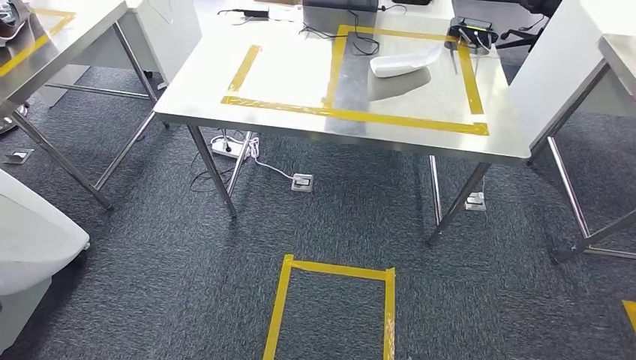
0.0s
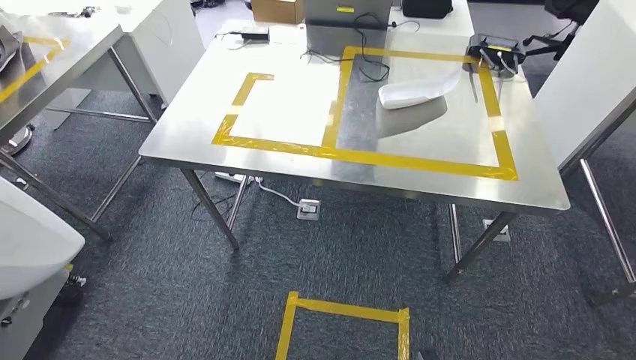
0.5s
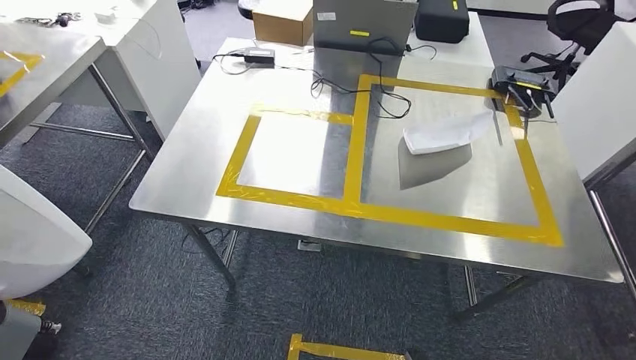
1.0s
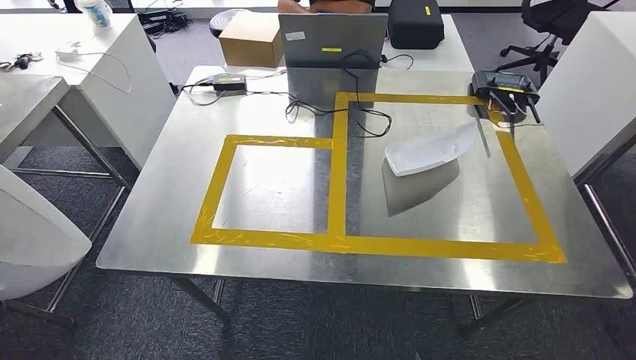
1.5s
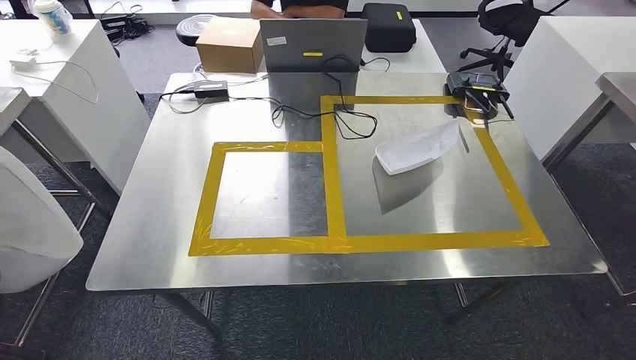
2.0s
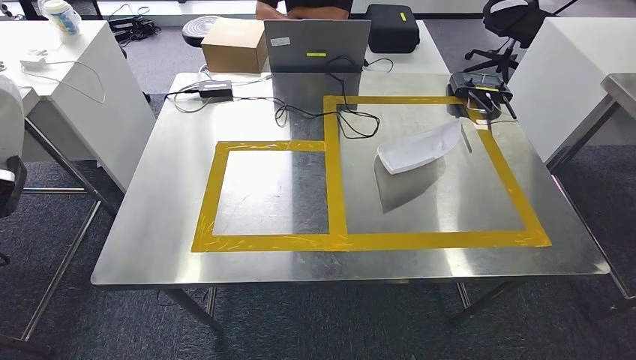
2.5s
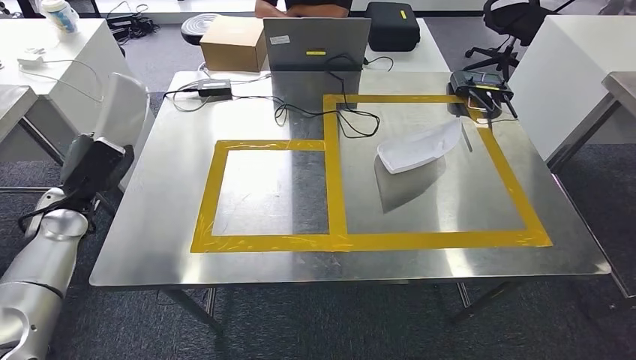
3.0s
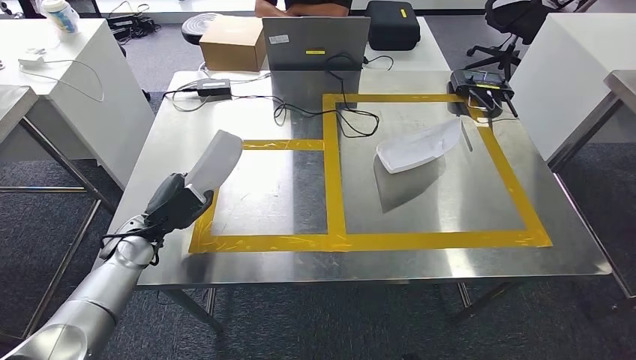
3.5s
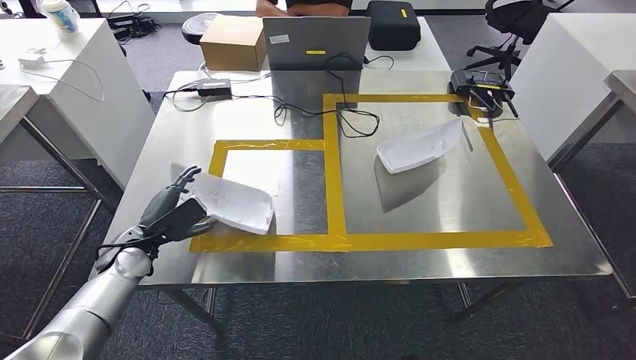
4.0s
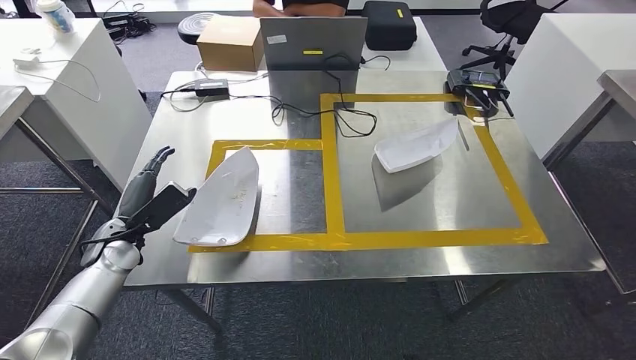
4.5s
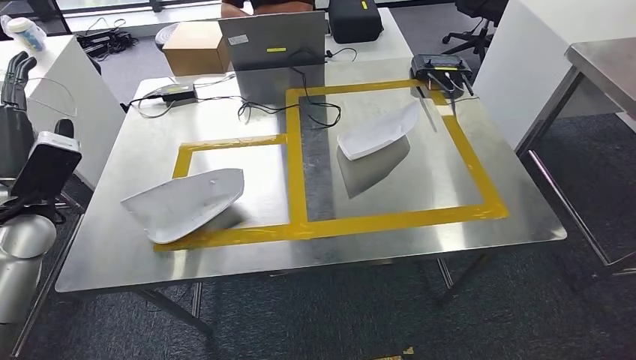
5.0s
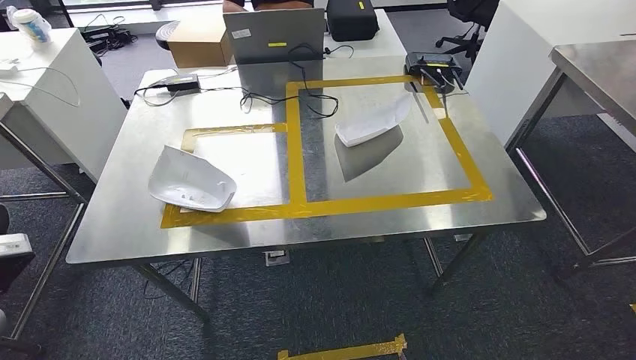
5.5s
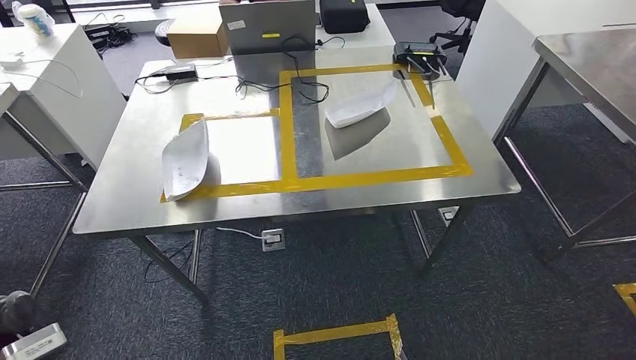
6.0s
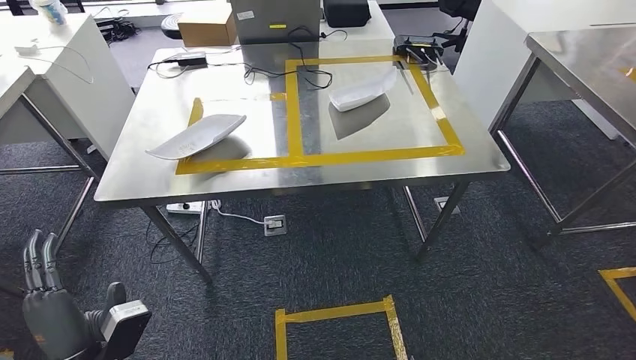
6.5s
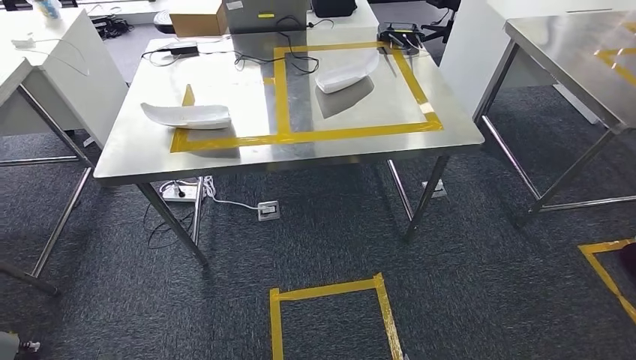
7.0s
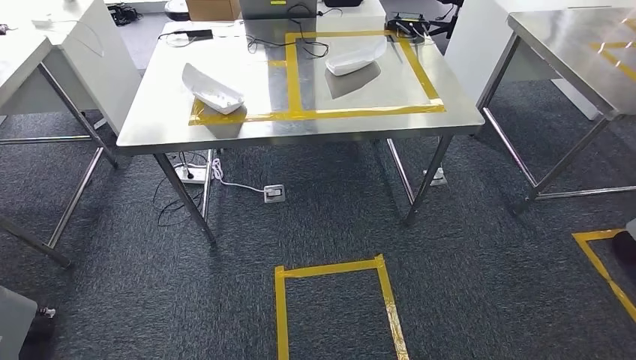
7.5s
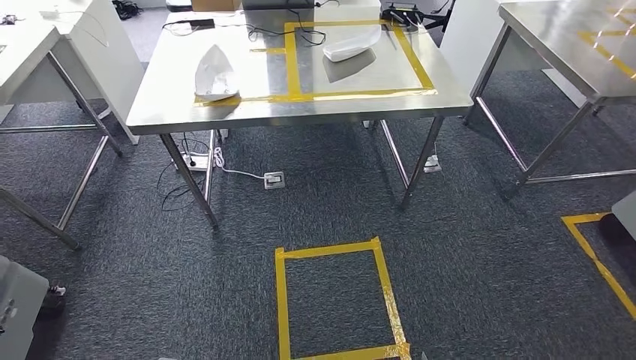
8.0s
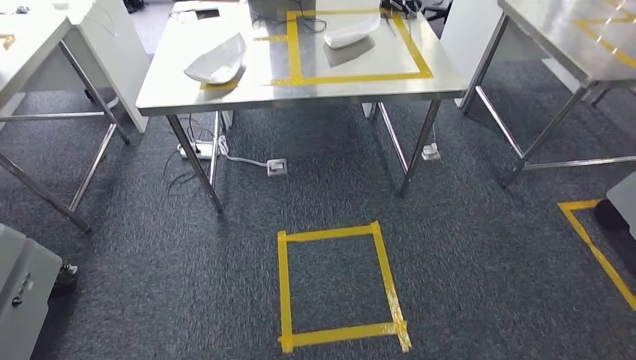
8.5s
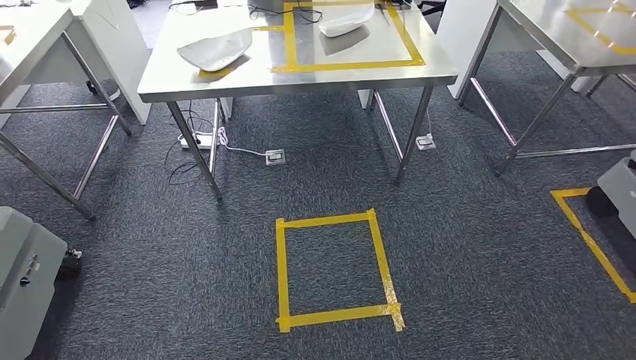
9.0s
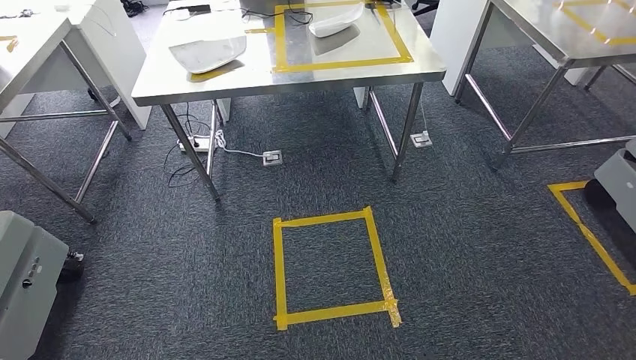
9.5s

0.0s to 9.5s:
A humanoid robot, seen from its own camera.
Step, 0.5s to 5.5s: Insert the small parts into the corresponding holes on the workbench.
Step, 6.0s to 9.5s: Move to the initial position at the workbench.

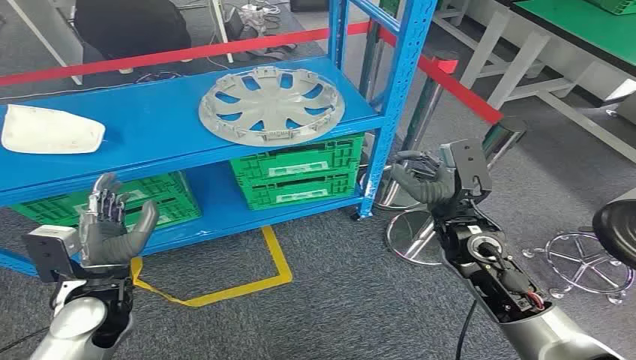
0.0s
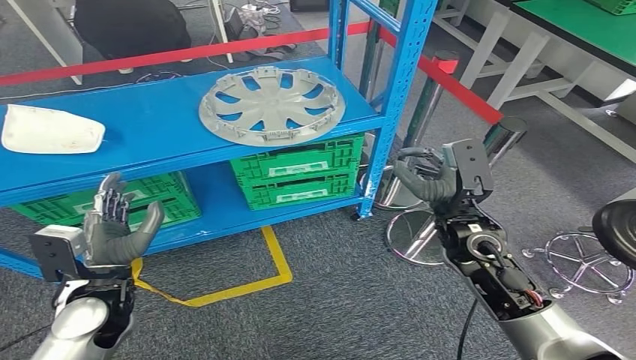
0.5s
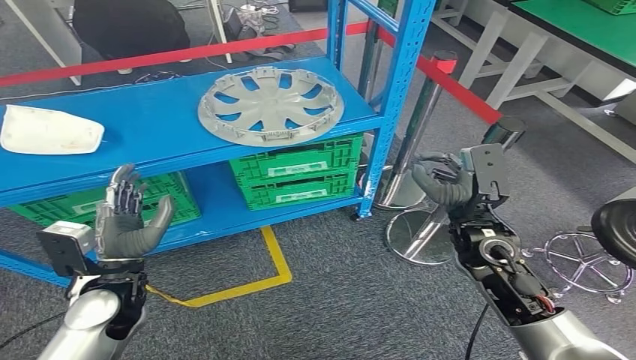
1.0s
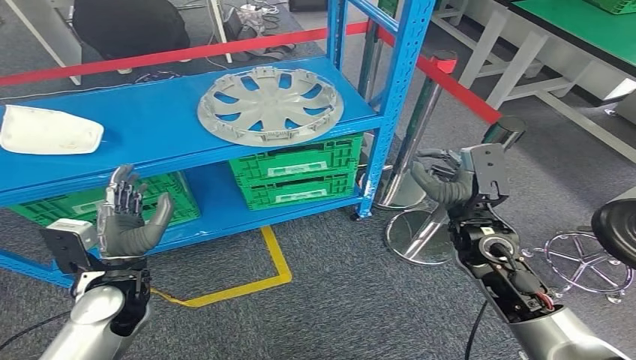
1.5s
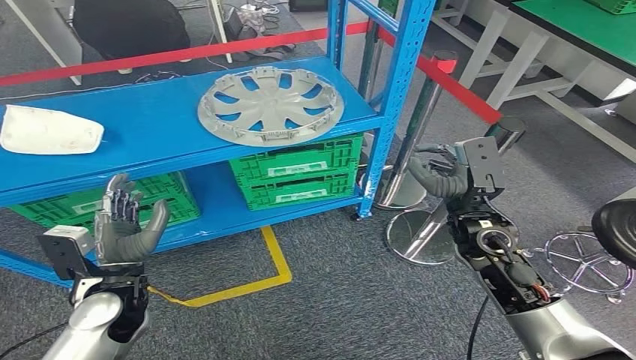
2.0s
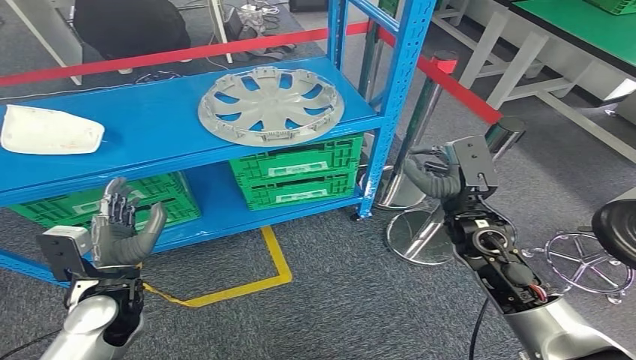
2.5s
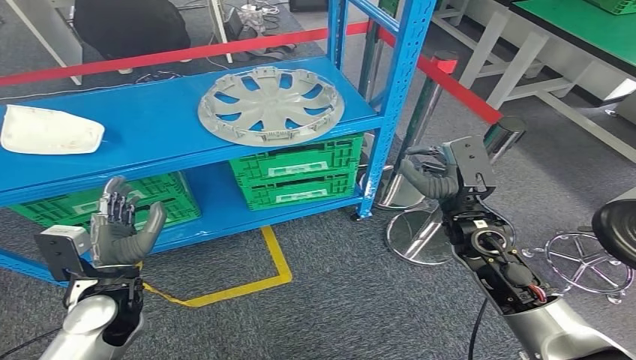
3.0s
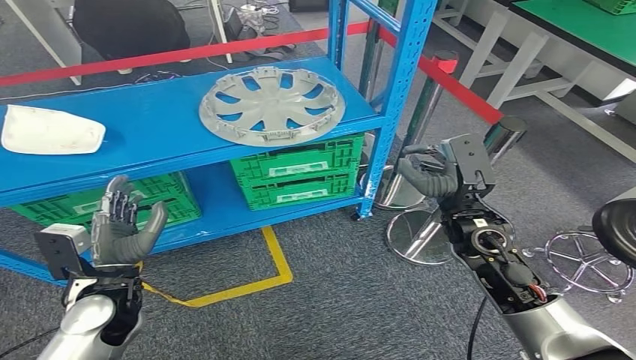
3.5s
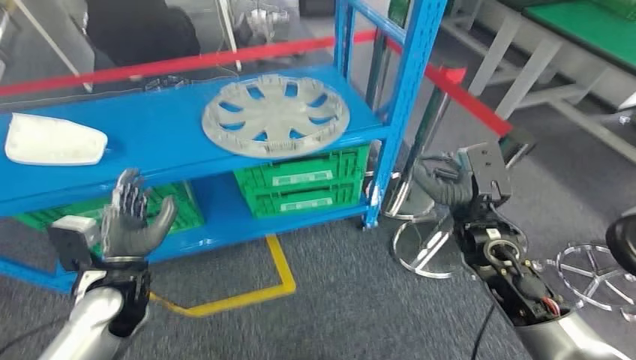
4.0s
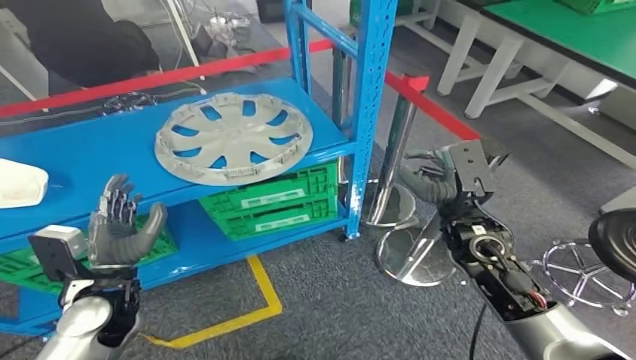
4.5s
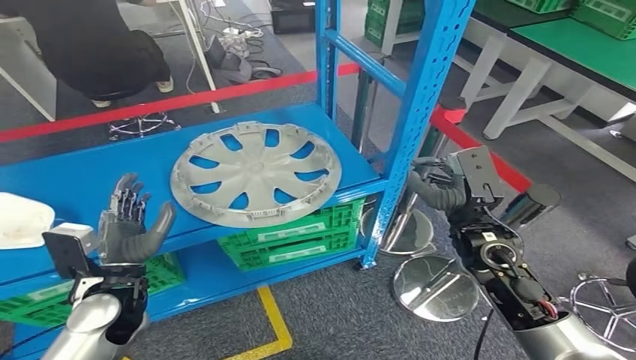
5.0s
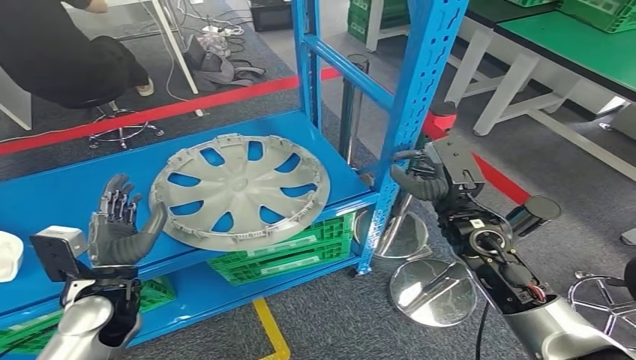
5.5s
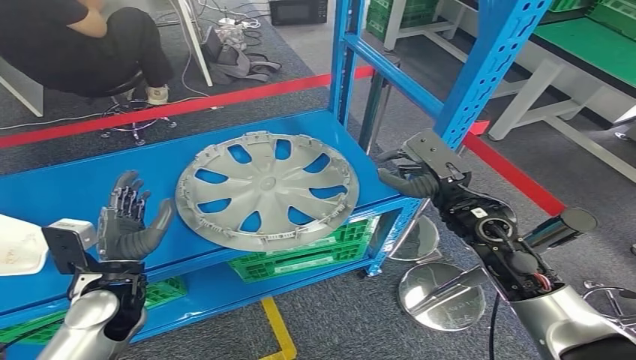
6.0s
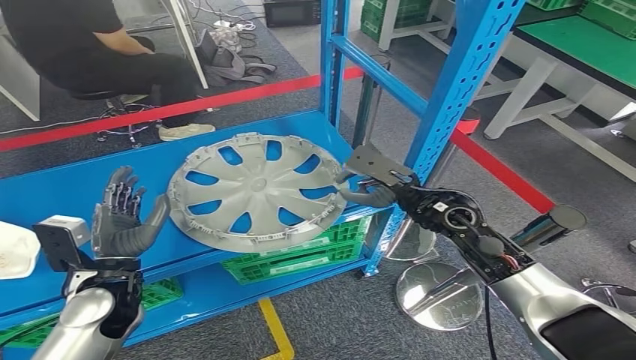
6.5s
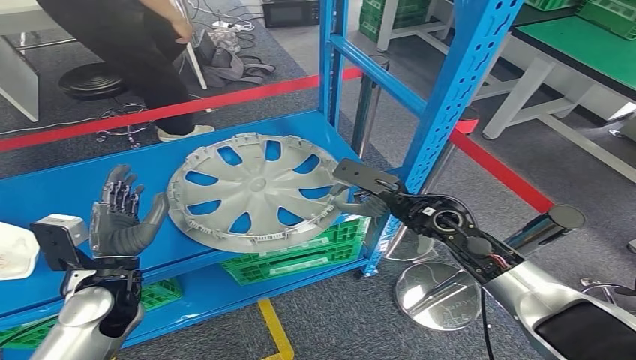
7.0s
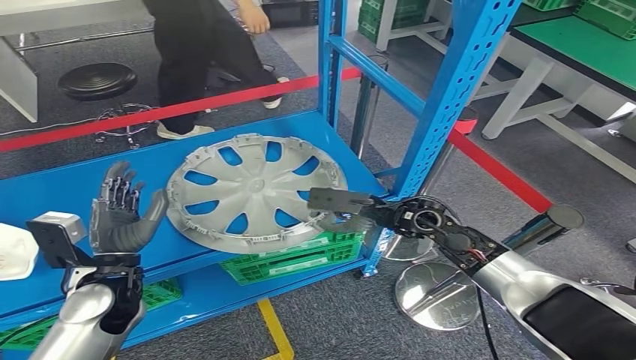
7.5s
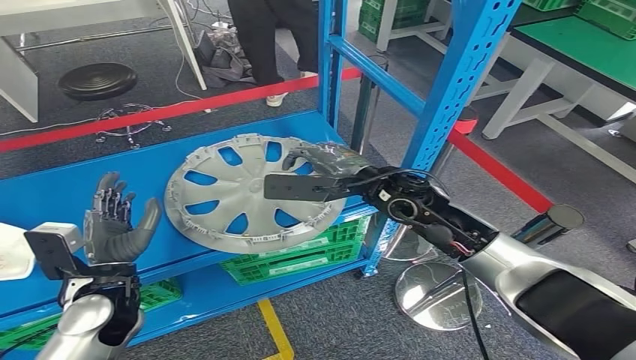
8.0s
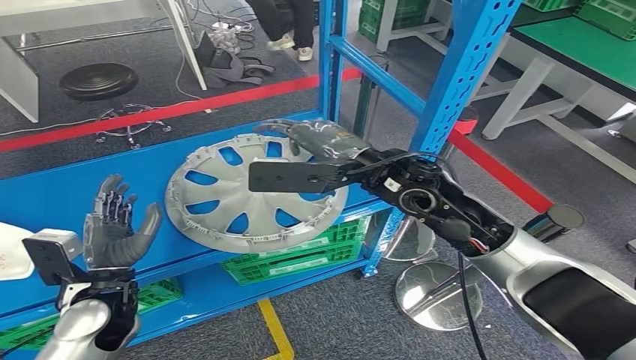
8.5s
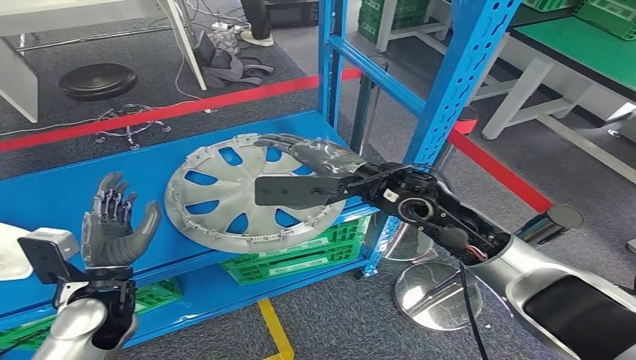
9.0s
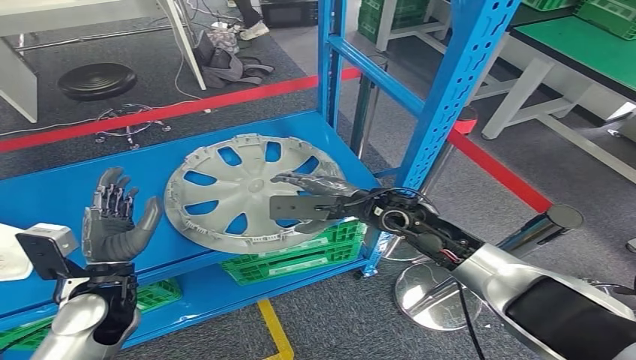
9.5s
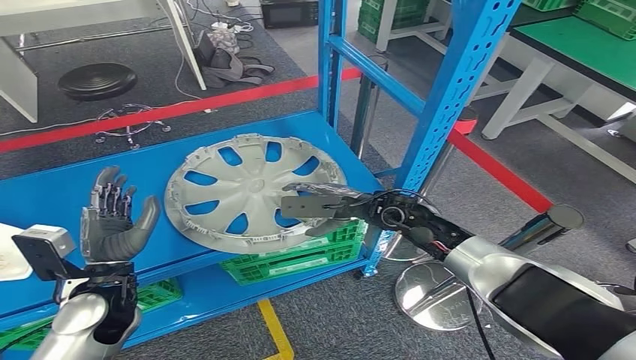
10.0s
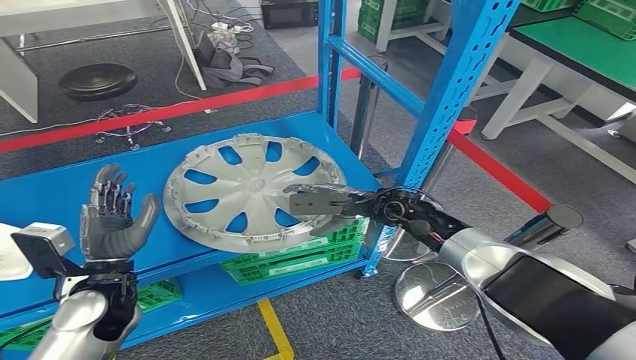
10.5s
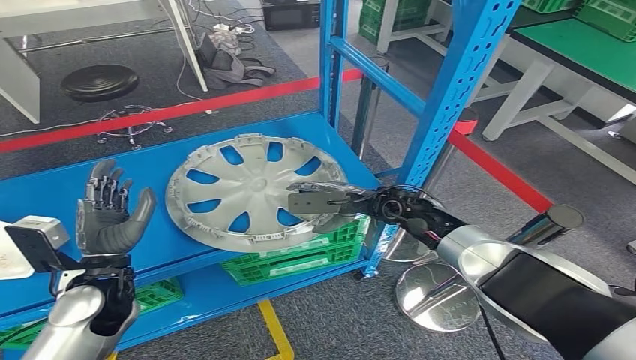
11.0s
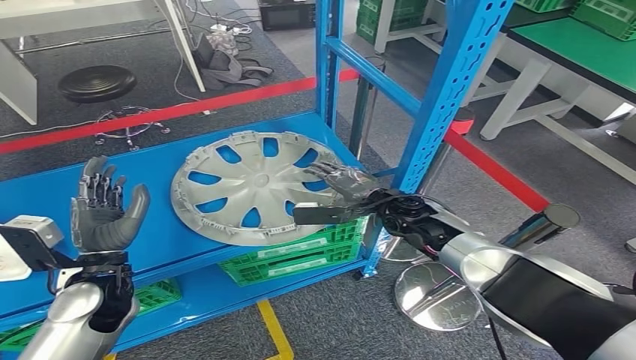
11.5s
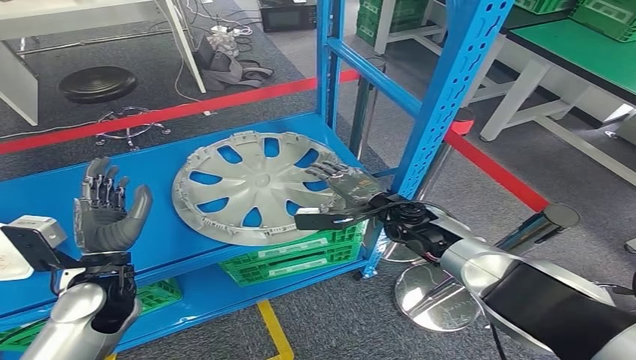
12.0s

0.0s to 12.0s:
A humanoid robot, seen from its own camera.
8.0s to 10.0s: The right hand travels downward by about 10 cm.
10.0s to 12.0s: The right hand shifts by some 5 cm.
